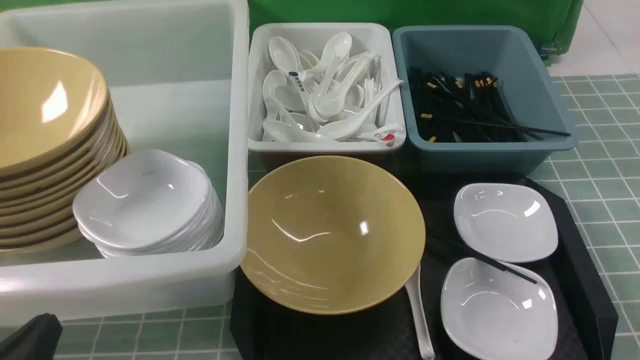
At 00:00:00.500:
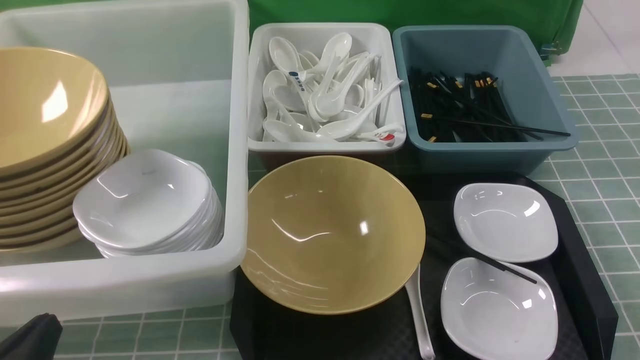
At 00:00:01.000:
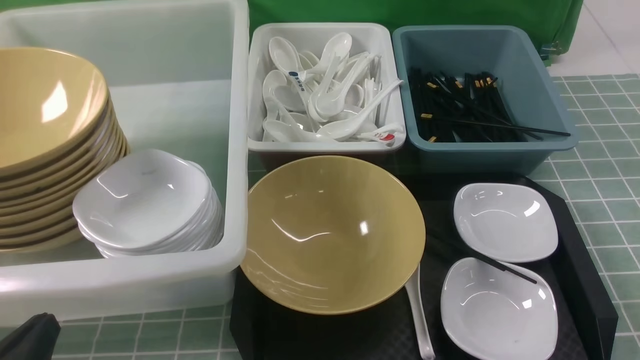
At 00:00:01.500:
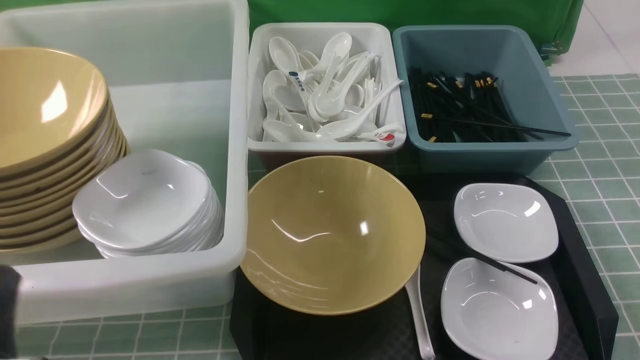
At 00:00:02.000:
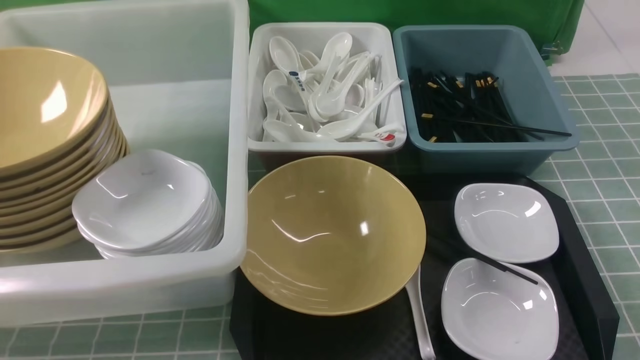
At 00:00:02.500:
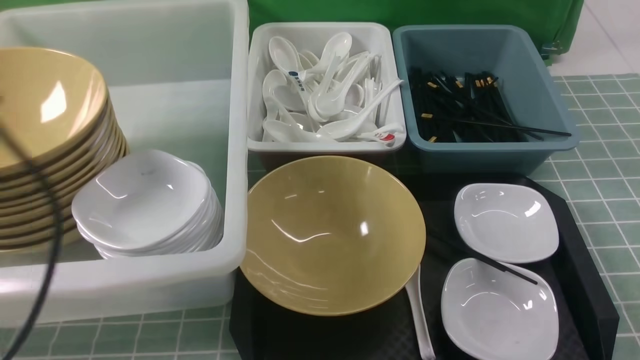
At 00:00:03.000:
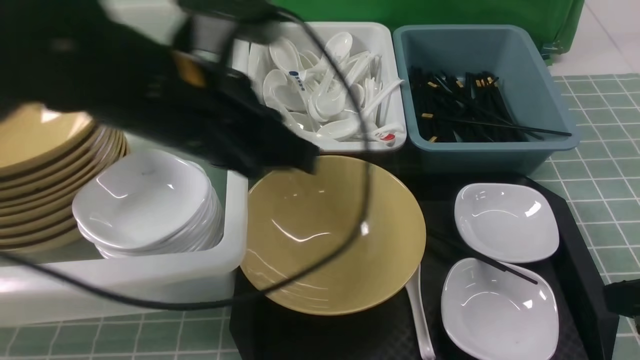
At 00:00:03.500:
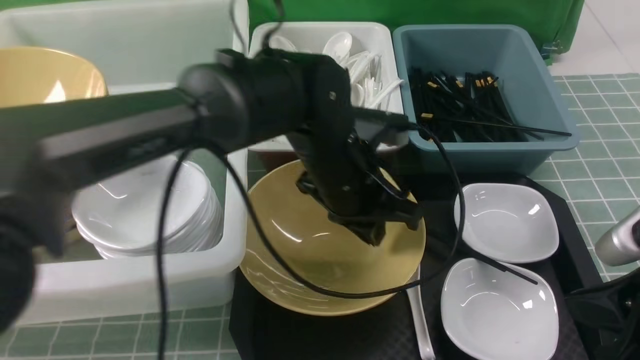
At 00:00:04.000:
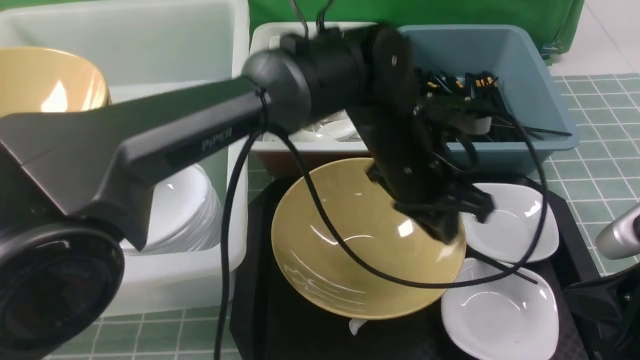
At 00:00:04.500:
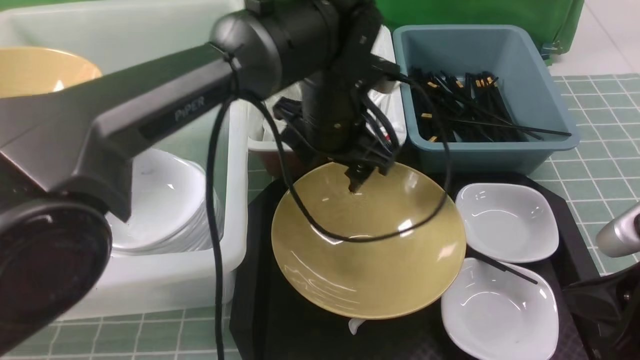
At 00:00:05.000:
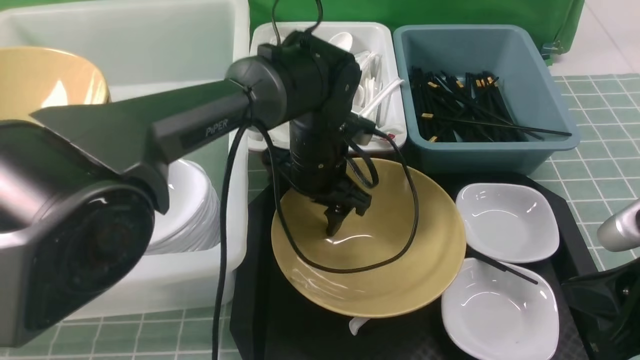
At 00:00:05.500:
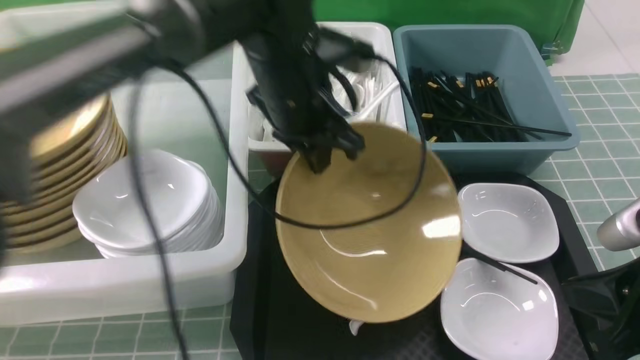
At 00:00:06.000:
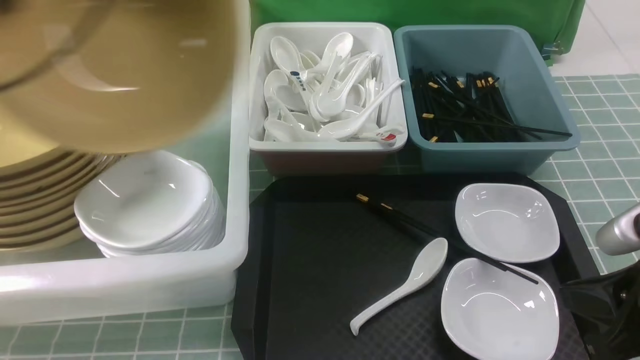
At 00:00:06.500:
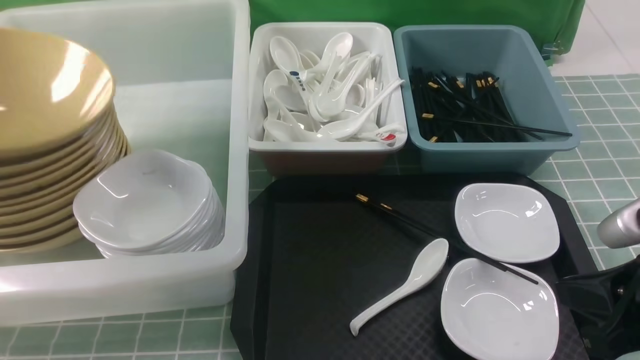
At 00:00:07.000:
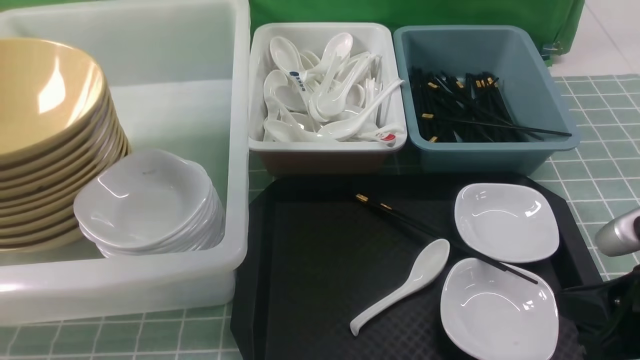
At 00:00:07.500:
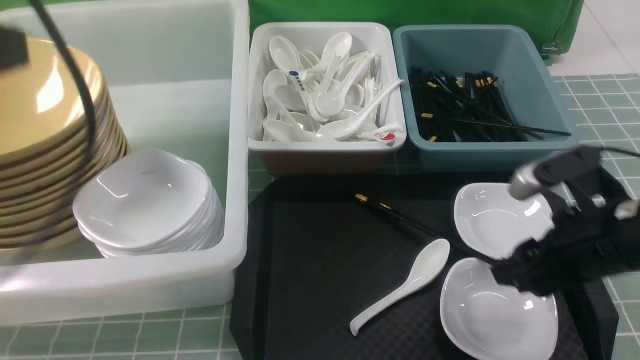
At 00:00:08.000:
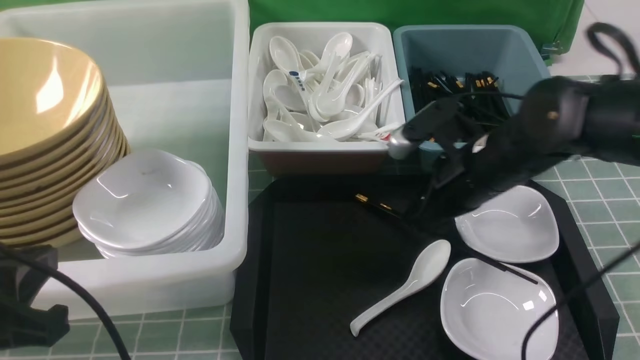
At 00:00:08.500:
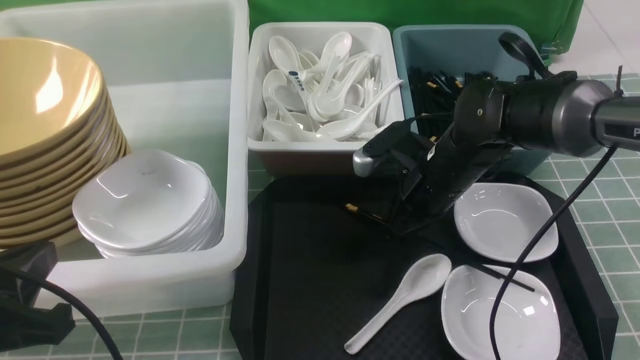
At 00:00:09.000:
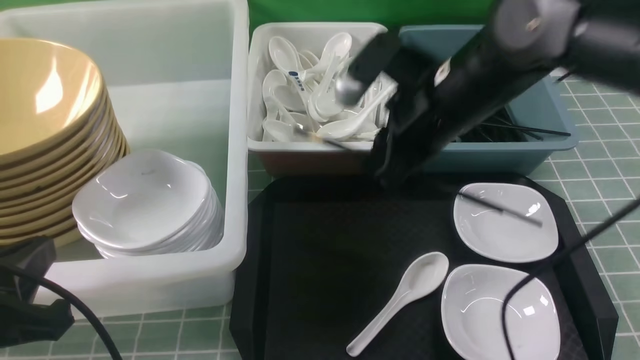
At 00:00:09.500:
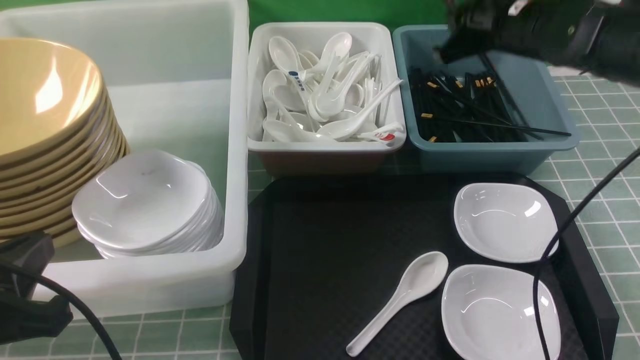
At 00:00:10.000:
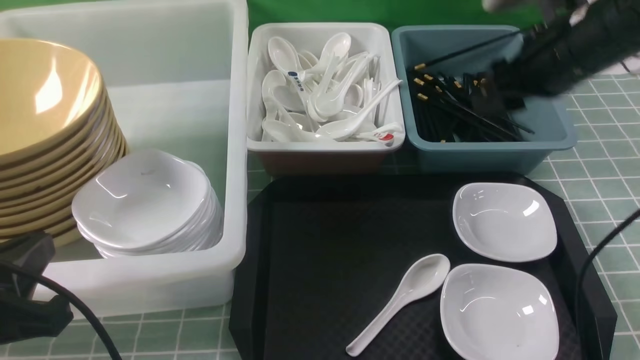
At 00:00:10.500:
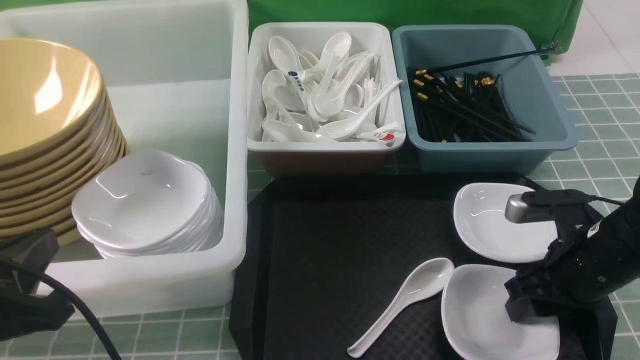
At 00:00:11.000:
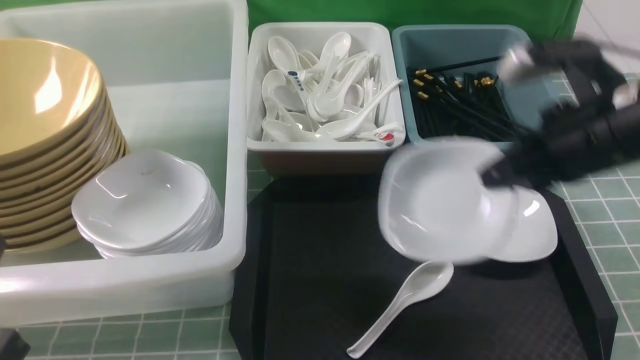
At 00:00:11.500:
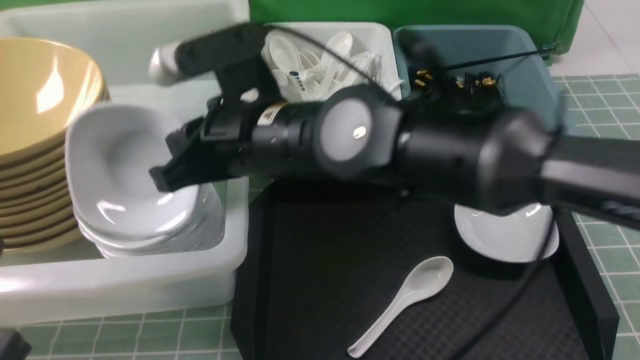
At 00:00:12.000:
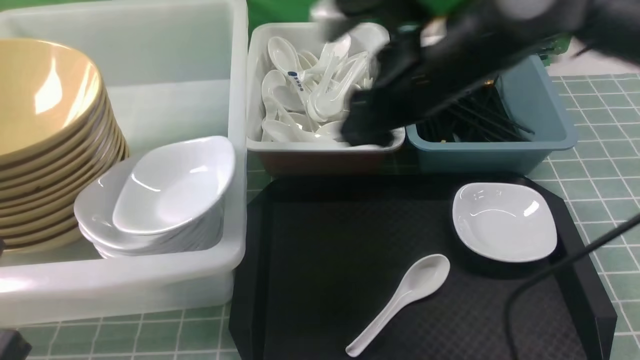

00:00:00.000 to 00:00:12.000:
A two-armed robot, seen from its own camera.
Task of the whole recording: on blue table put chopsticks spoon bowls plates into blue grey white boxes.
Step, 00:00:00.000 to 00:00:05.000: use the left arm to grab the yellow noodle bowl on the left.
Step, 00:00:05.500 to 00:00:06.500: use the left arm to put the noodle bowl into the large storage box on the left.
Step, 00:00:07.000 to 00:00:08.500: use the right arm to grab the chopsticks.
Step, 00:00:09.000 to 00:00:09.500: use the right arm to grab a chopstick.
Step, 00:00:10.000 to 00:00:10.500: use the right arm to grab the plate.
Step, 00:00:11.000 to 00:00:11.500: use the right arm to put the plate into the large storage box on the left.
00:00:00.000 to 00:00:02.000: The left gripper moves upward, roughly 15 cm.
00:00:02.000 to 00:00:04.000: The right gripper moves forward and to the left, approximately 10 cm; the left gripper travels to the right and forward by about 40 cm.
00:00:04.000 to 00:00:06.000: The left gripper shifts some 40 cm to the left and upward, and opens, then closes once more.
00:00:06.000 to 00:00:08.000: The left gripper goes some 25 cm backward and downward, and opens, then closes again; the right gripper goes about 20 cm forward and to the left, and opens.
00:00:08.000 to 00:00:10.000: The right gripper shifts roughly 10 cm to the right and upward, and closes, then opens again.
00:00:10.000 to 00:00:12.000: The right gripper shifts some 15 cm to the left, and closes and opens again.

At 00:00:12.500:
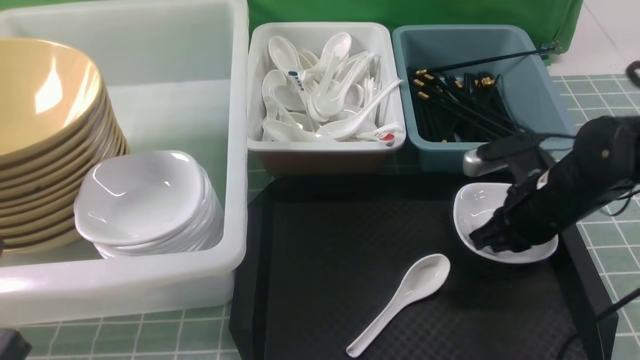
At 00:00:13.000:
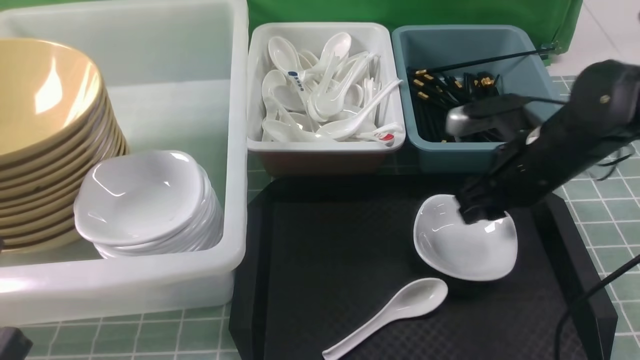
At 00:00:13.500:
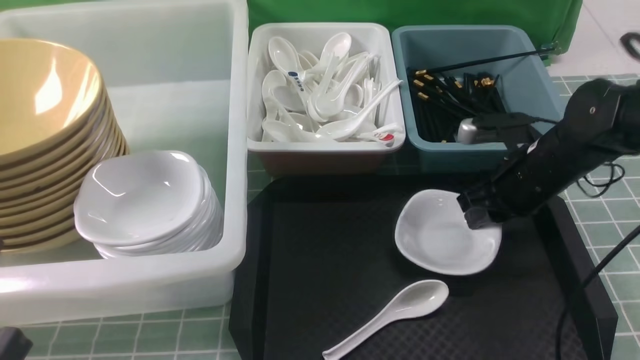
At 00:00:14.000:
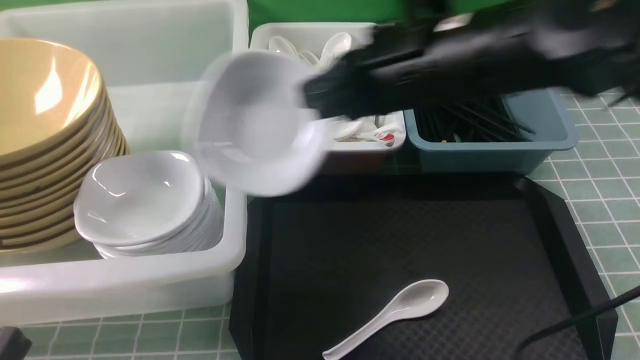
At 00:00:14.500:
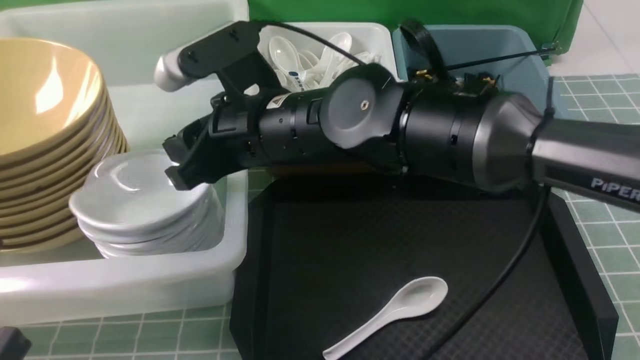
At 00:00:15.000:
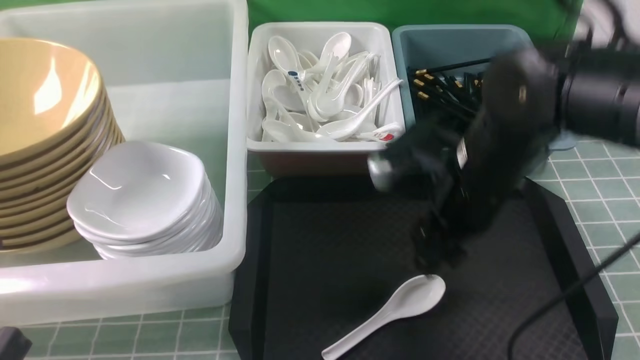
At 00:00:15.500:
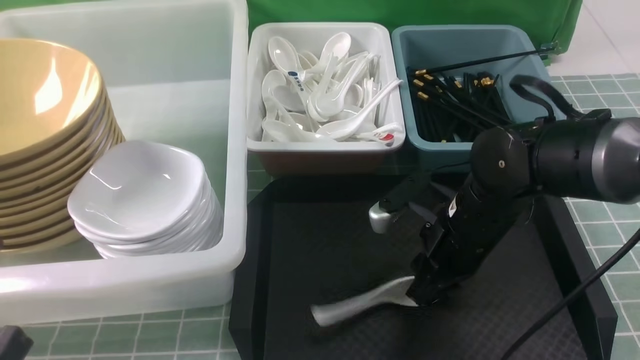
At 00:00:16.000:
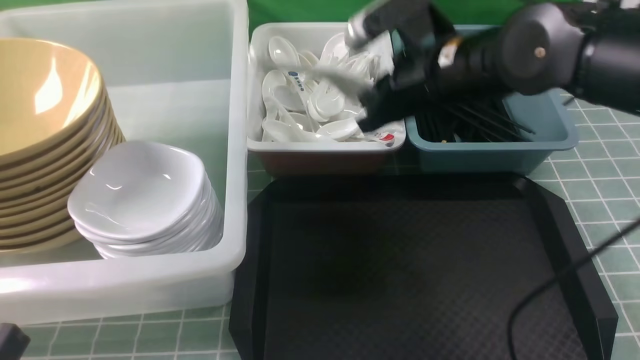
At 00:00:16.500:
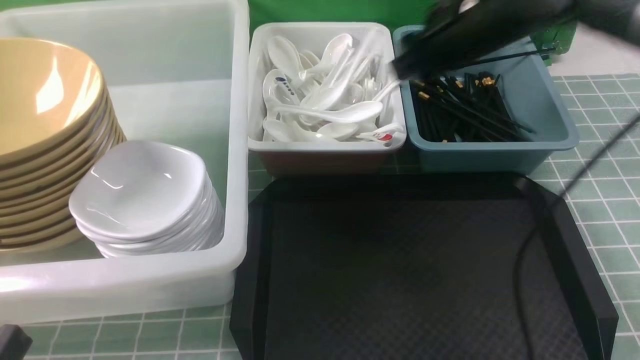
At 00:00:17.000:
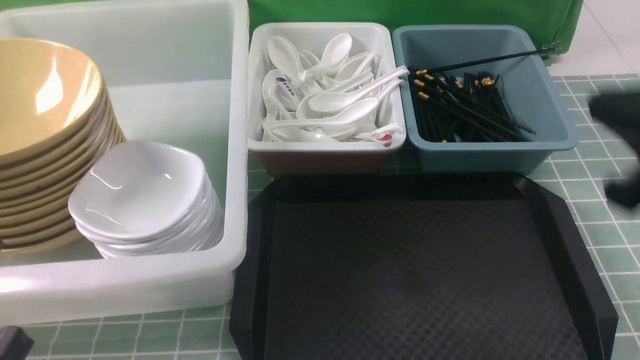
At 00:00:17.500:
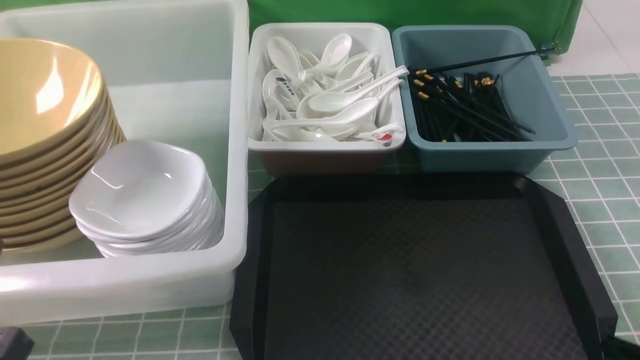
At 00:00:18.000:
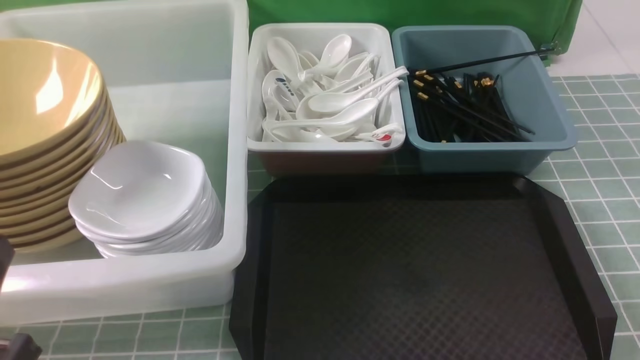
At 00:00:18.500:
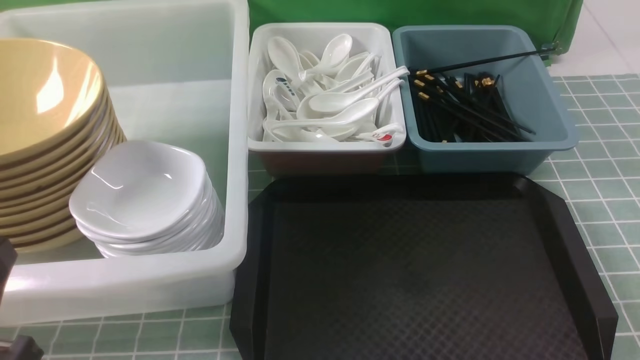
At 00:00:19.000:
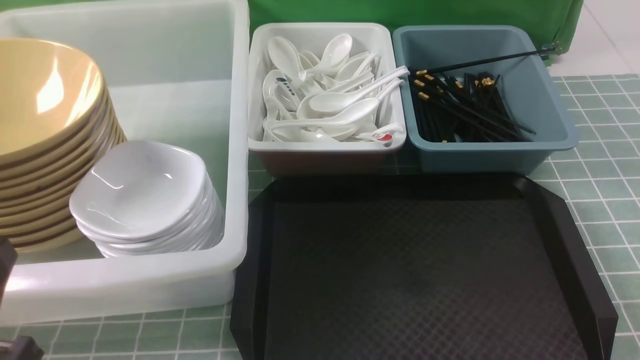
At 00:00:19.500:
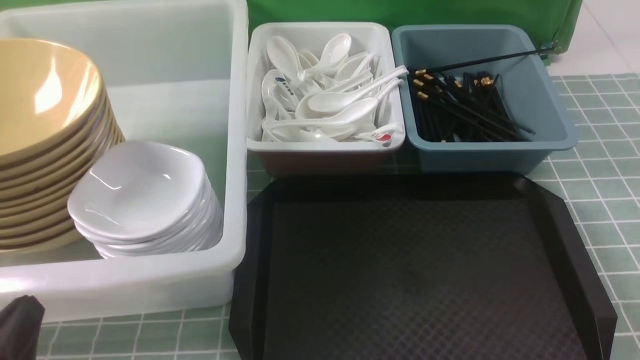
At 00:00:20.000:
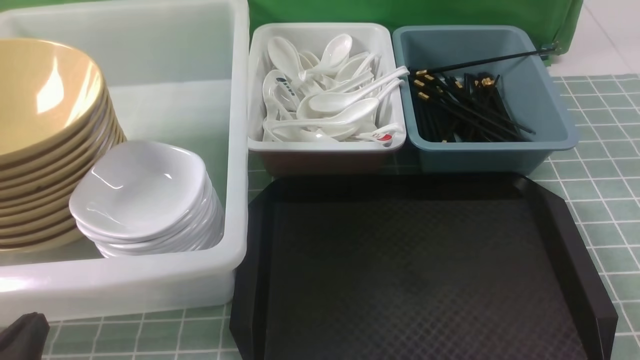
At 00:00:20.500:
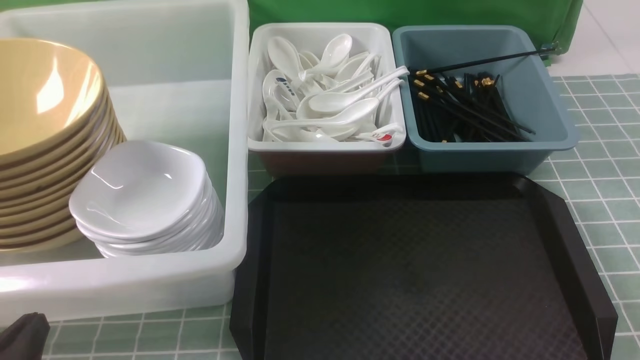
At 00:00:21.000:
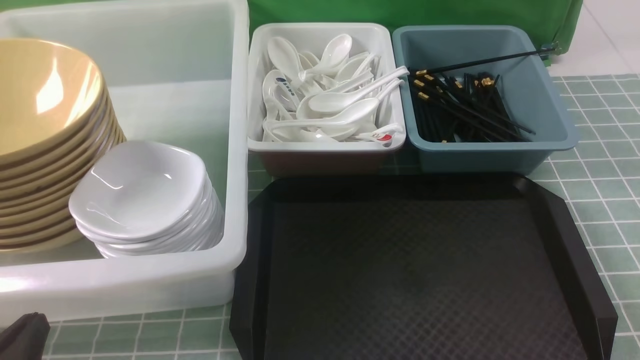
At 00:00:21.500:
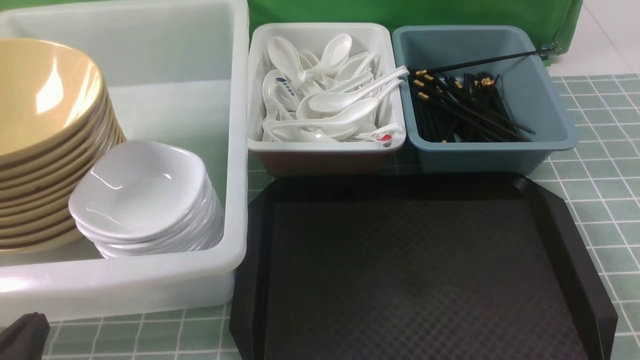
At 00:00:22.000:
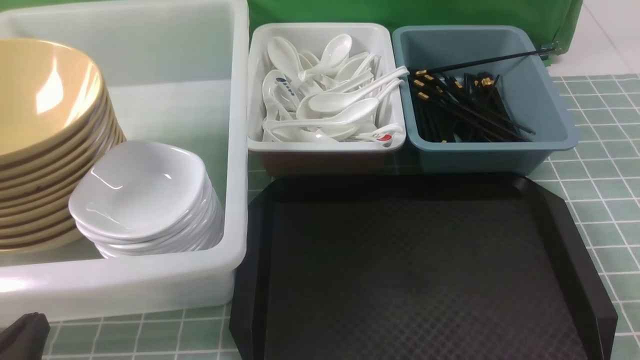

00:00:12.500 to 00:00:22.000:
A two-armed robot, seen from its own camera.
Task of the whole recording: on blue table put chopsticks spoon bowls plates into blue grey white boxes.
Step, 00:00:12.500 to 00:00:13.500: use the right arm to grab the plate.
Step, 00:00:14.000 to 00:00:14.500: use the right arm to put the plate into the large storage box on the left.
Step, 00:00:15.000 to 00:00:15.500: use the right arm to grab the soup spoon in the middle.
Step, 00:00:16.000 to 00:00:16.500: use the right arm to put the soup spoon into the small storage box in the middle.
00:00:12.500 to 00:00:14.500: The right gripper moves to the left and upward, about 25 cm, and opens up.
00:00:14.500 to 00:00:16.500: The right gripper is displaced to the right and forward by approximately 20 cm.
00:00:16.500 to 00:00:18.000: The right gripper shifts roughly 40 cm backward, downward and to the right, and closes.
00:00:18.000 to 00:00:20.000: The left gripper goes some 10 cm downward.
00:00:20.000 to 00:00:22.000: Both grippers stay put.
